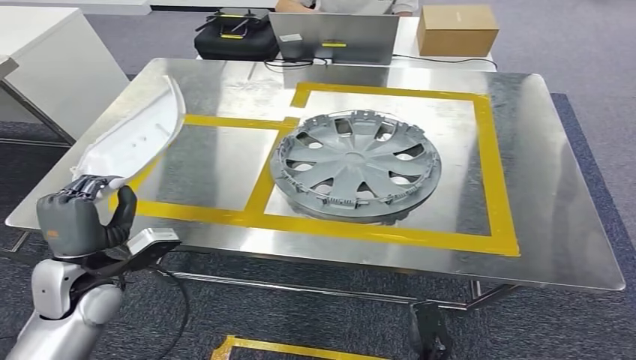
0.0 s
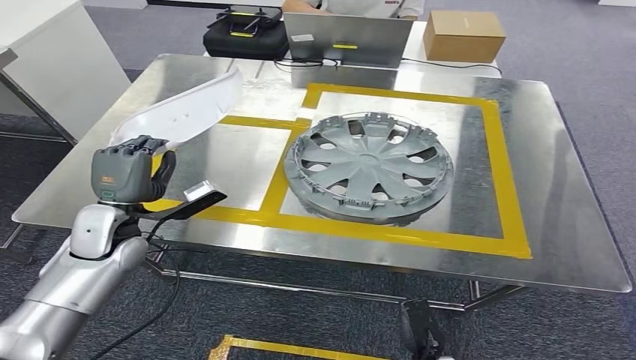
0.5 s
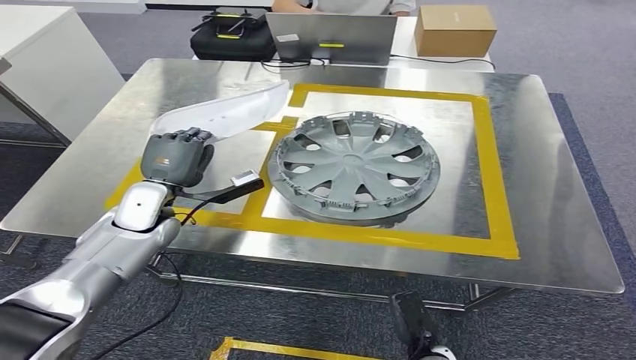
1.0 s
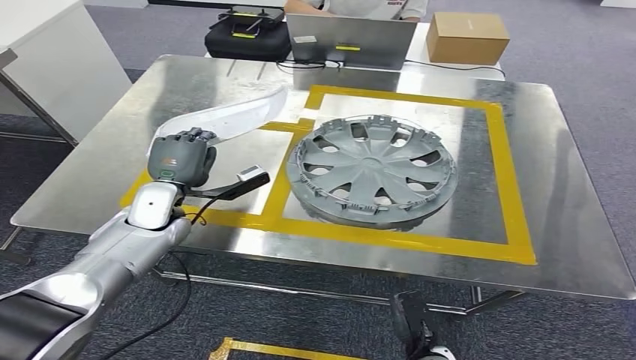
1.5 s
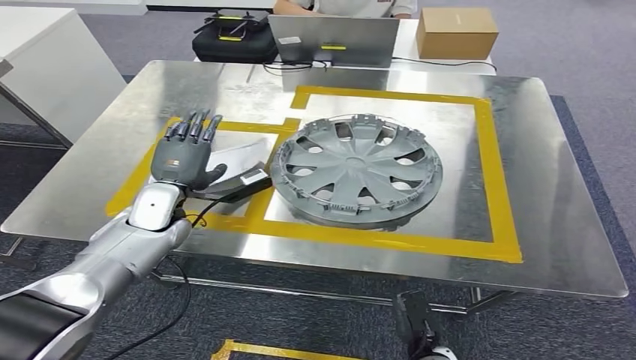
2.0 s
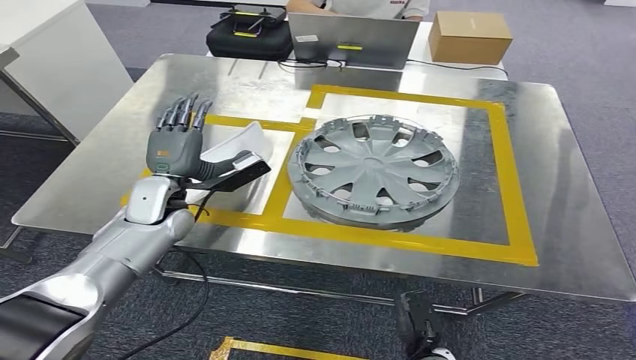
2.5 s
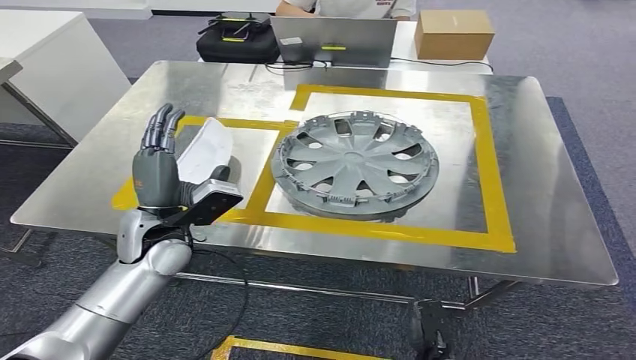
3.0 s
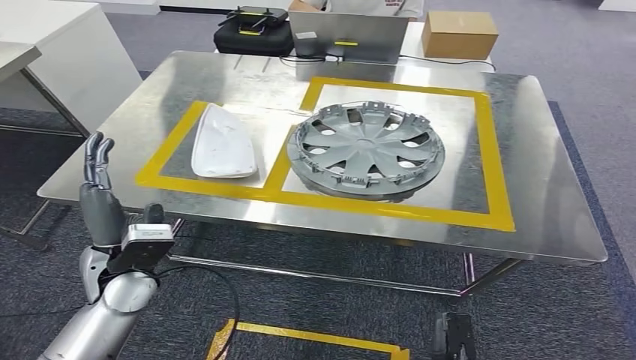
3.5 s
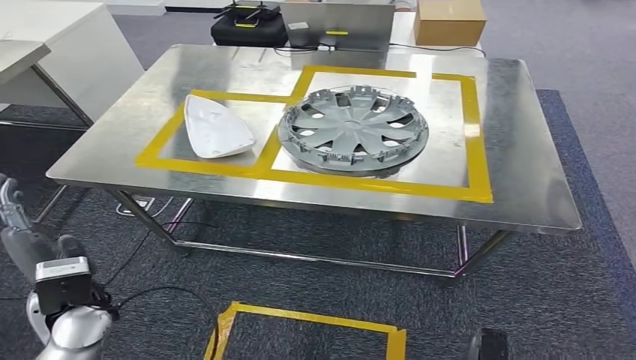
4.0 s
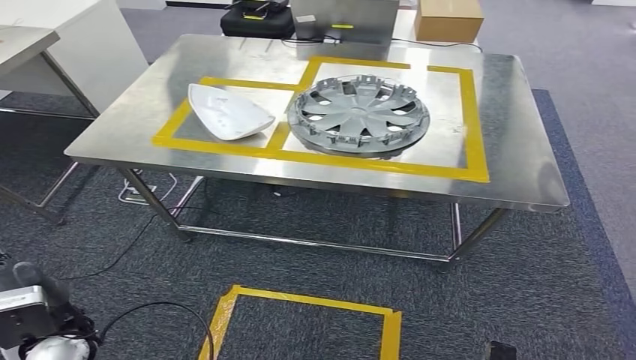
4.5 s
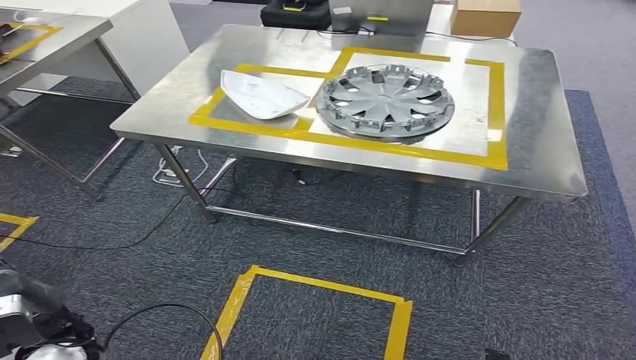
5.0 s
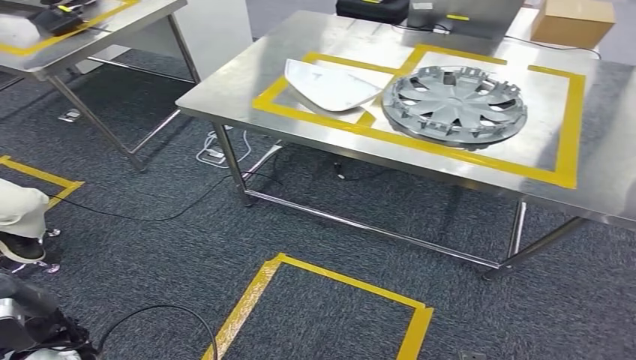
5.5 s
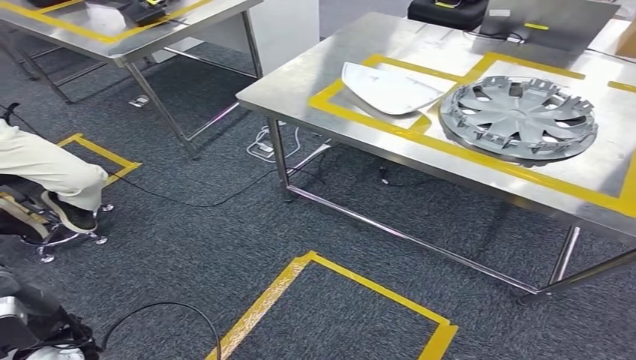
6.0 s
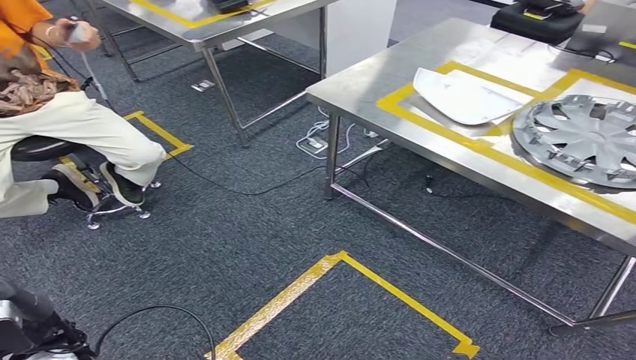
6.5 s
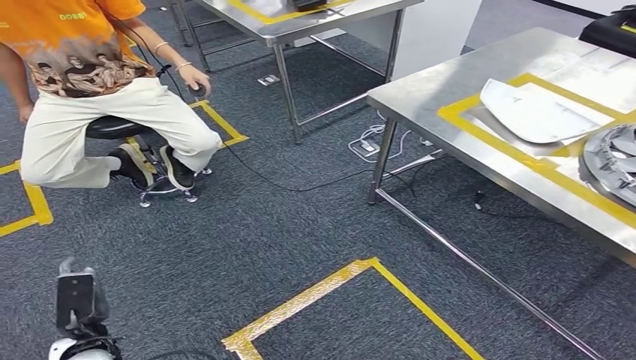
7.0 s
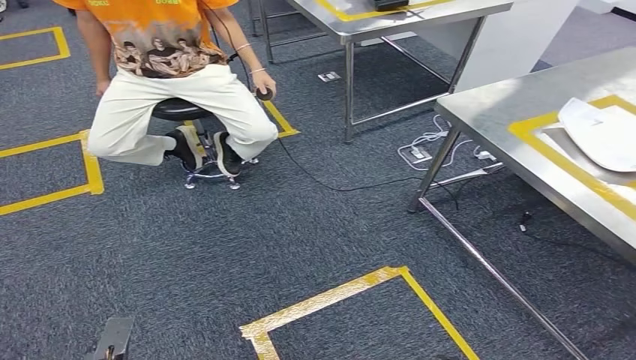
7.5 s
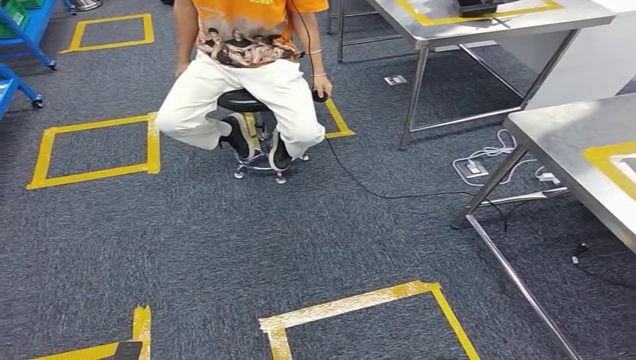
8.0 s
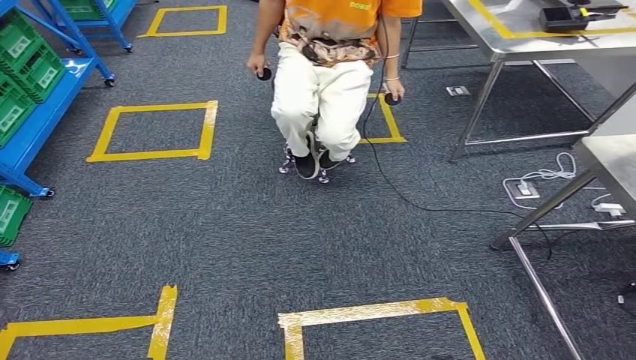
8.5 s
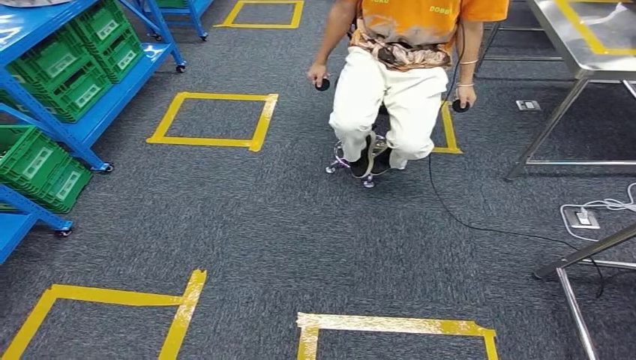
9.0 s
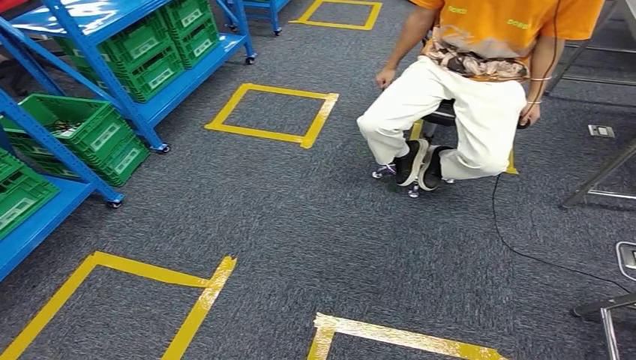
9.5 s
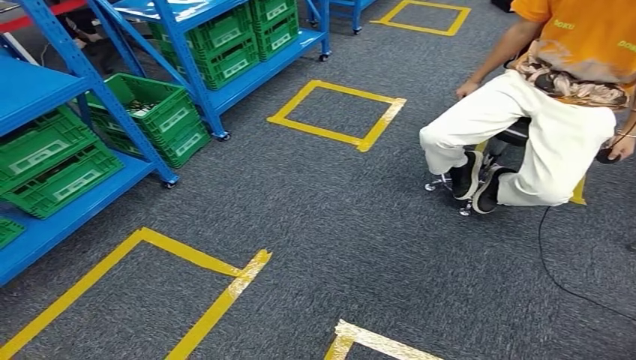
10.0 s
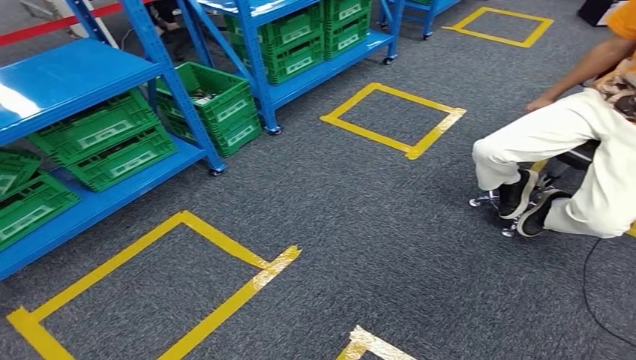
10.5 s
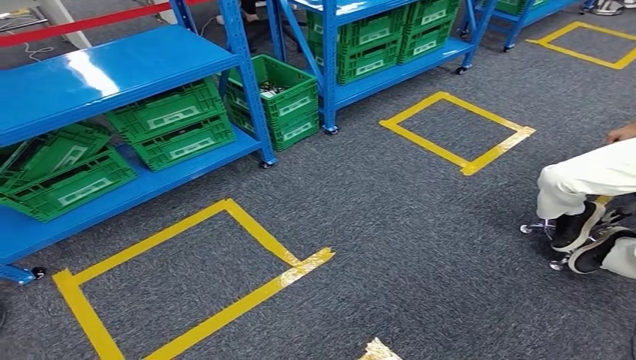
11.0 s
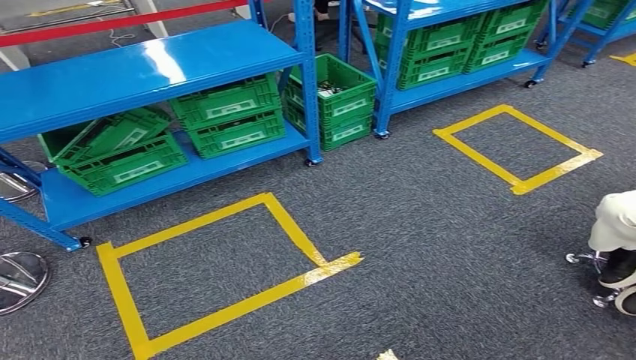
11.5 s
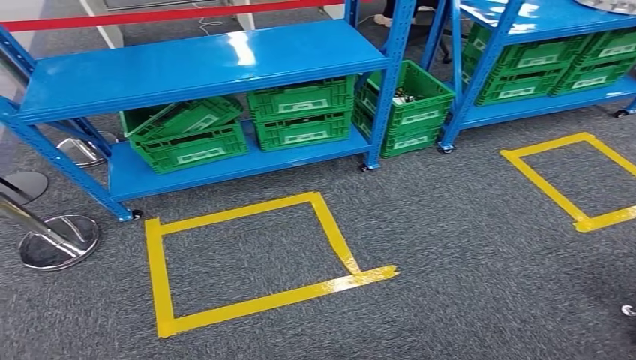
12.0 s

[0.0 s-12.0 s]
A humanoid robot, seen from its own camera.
Step, 0.0 to 3.0 s: Insert the small component into the corresponding slot on the workbench.

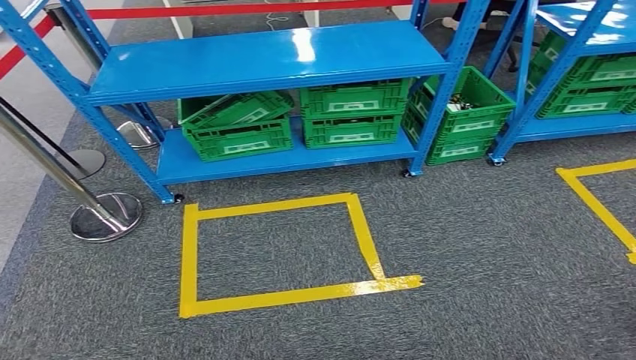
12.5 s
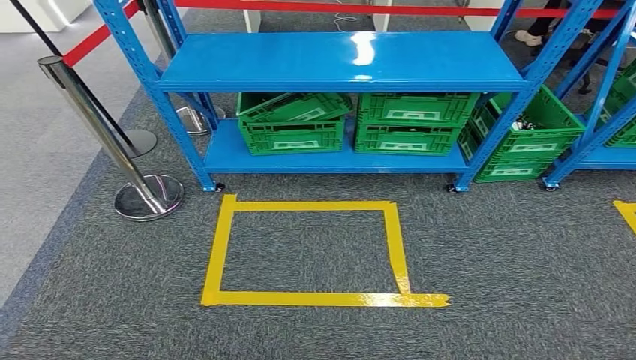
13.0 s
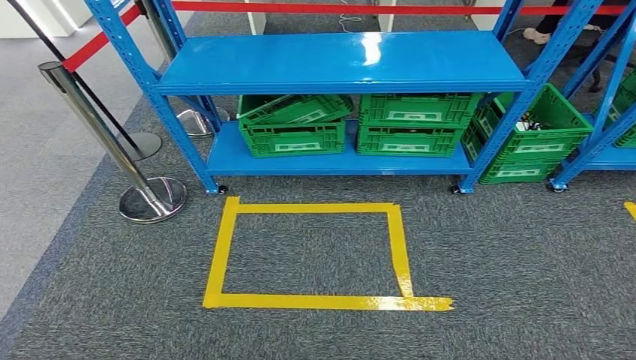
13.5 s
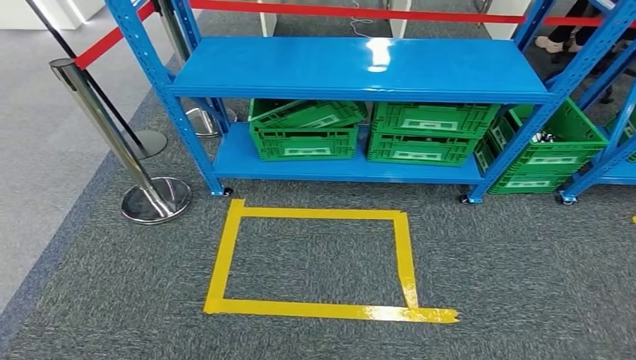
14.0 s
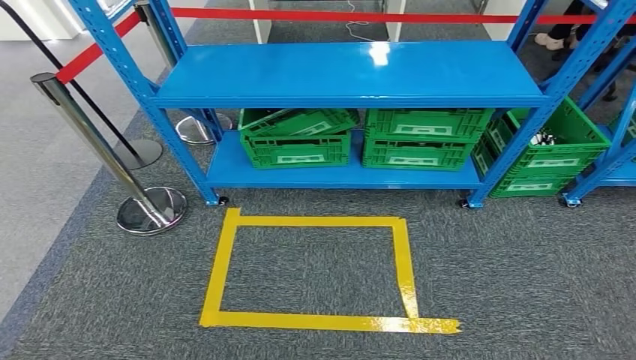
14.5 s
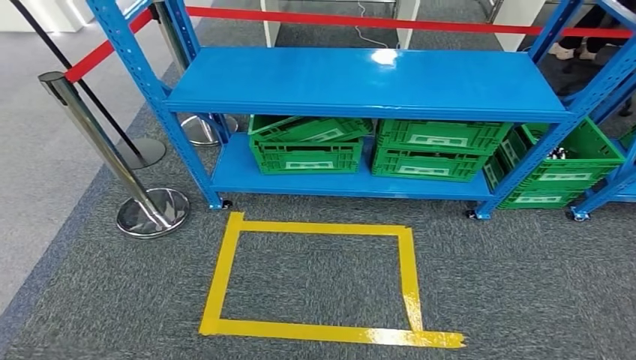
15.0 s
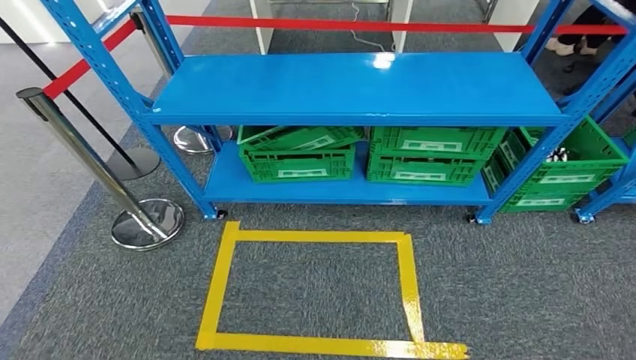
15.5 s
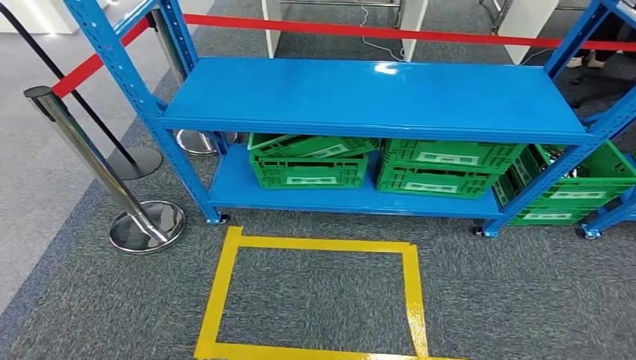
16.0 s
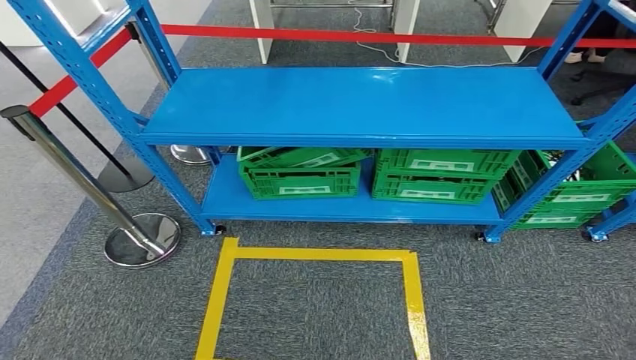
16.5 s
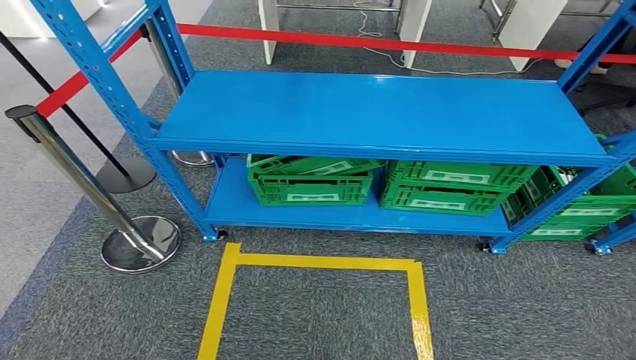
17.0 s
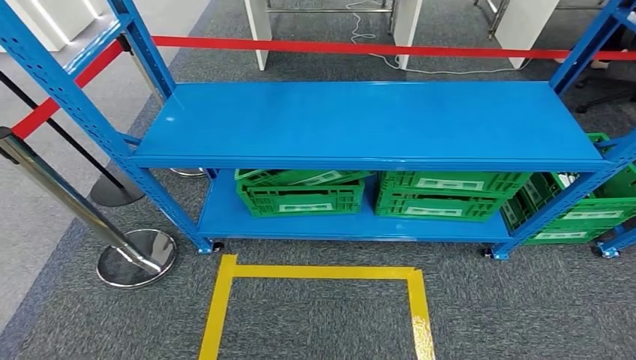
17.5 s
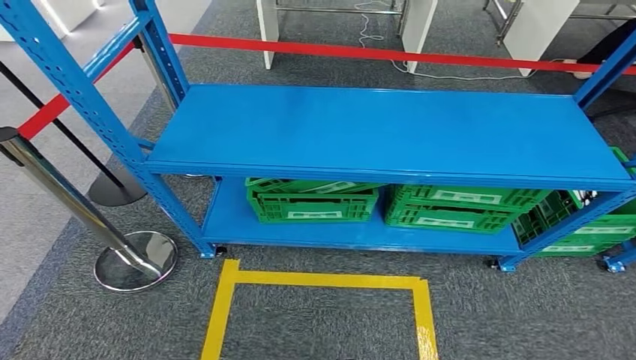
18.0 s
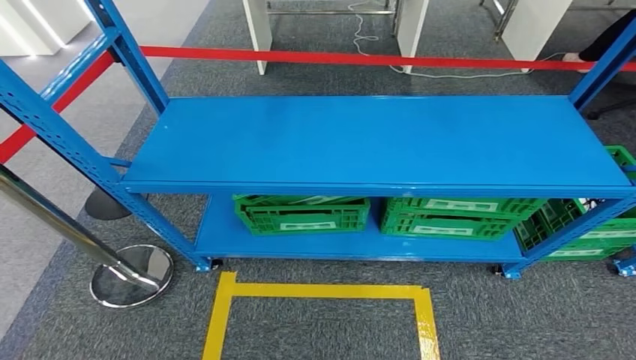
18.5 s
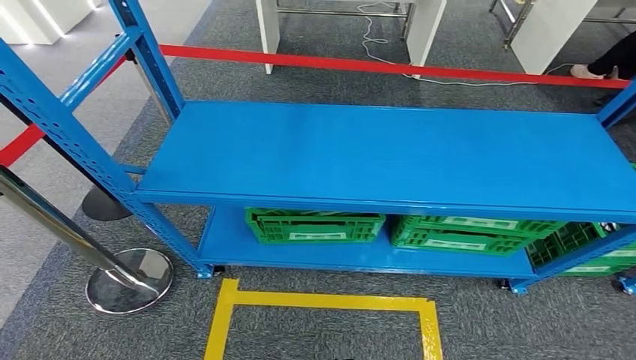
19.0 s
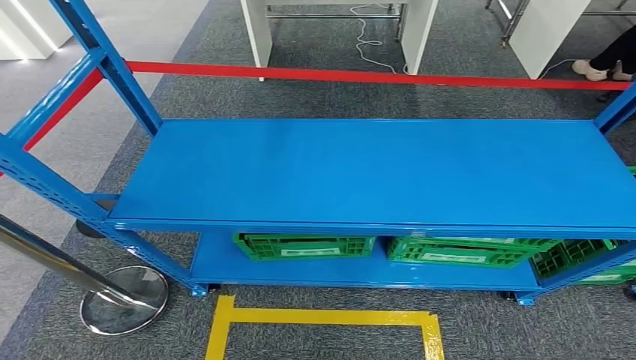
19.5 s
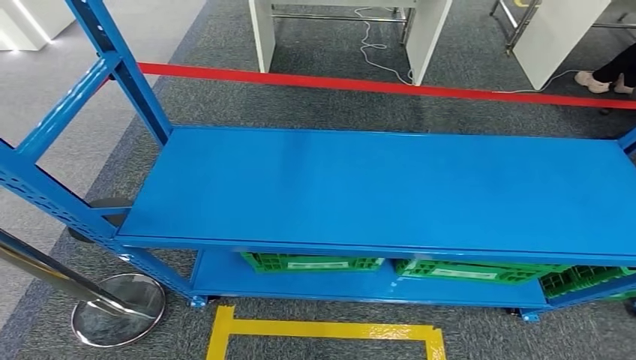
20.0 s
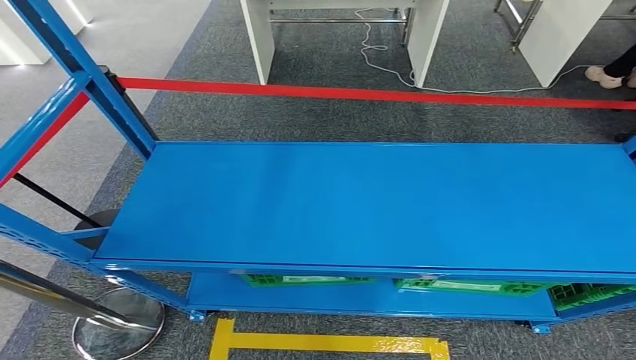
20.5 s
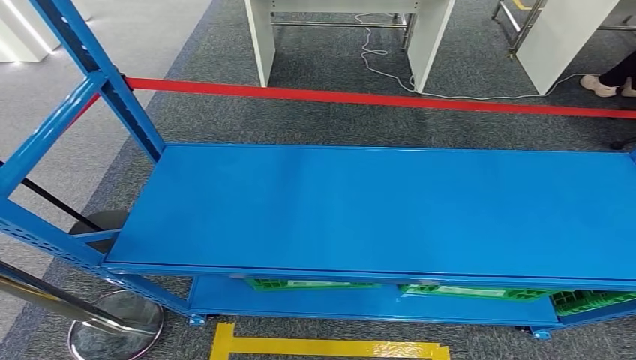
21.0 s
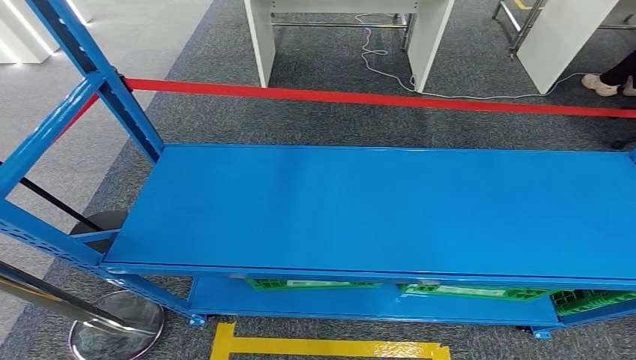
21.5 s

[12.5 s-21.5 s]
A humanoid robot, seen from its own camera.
Step, 12.5 to 21.5 s: Return to the initial position at the workbench.
